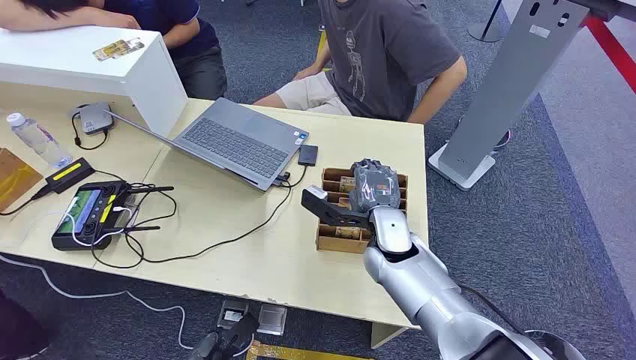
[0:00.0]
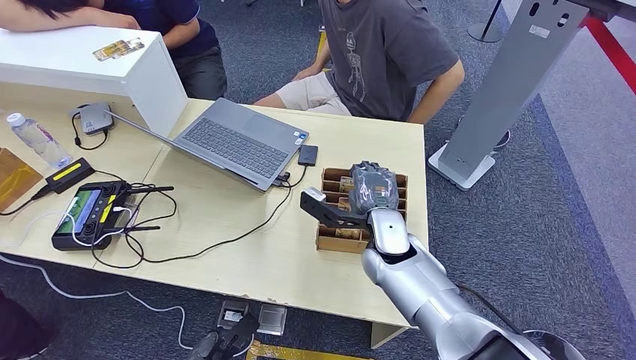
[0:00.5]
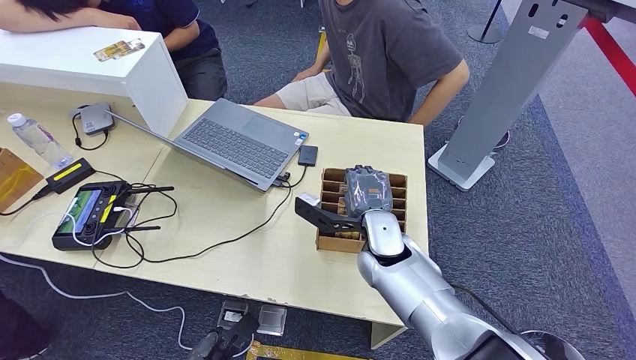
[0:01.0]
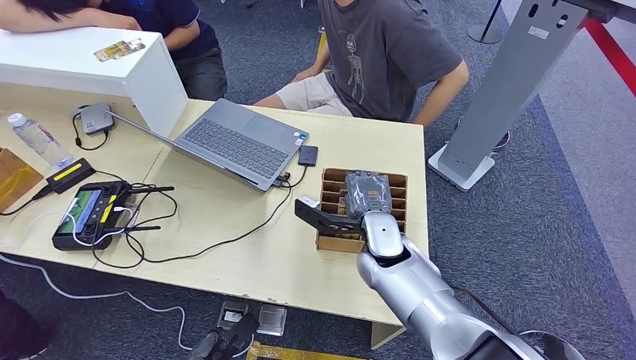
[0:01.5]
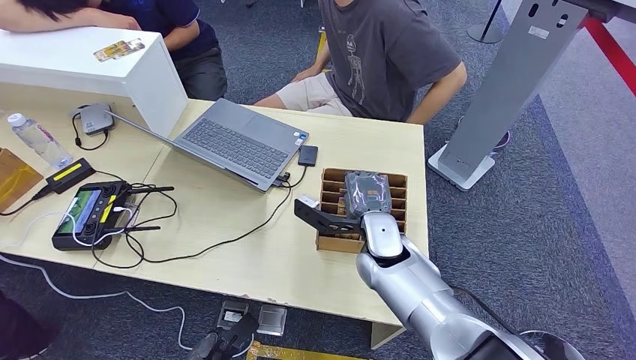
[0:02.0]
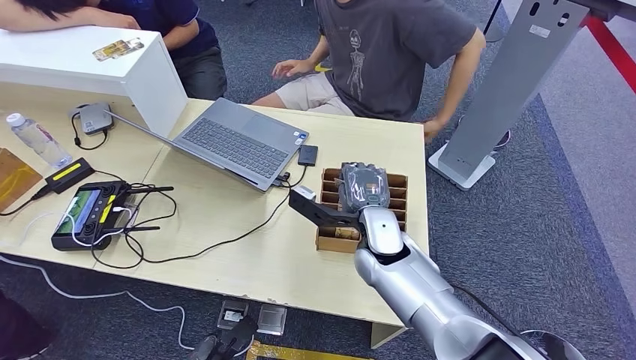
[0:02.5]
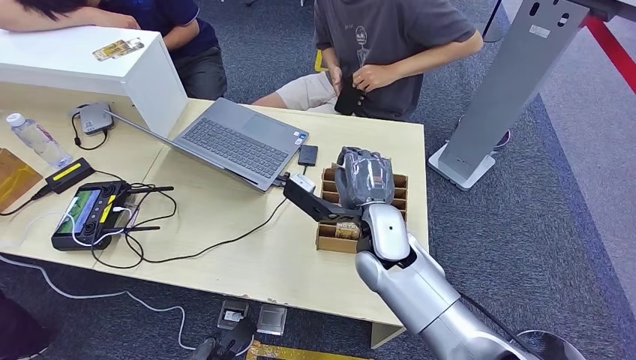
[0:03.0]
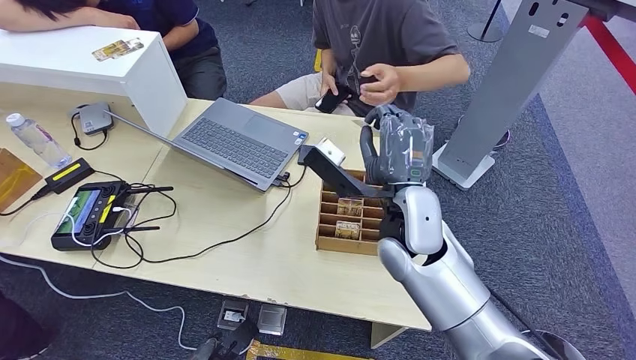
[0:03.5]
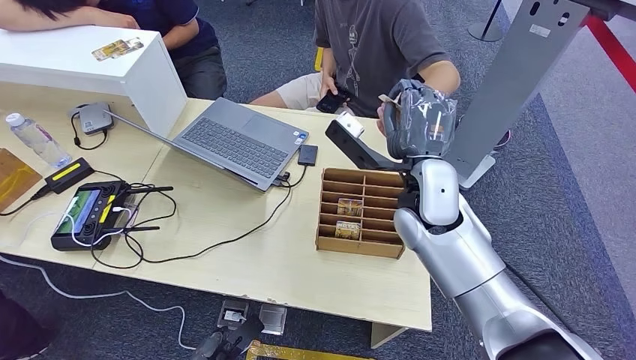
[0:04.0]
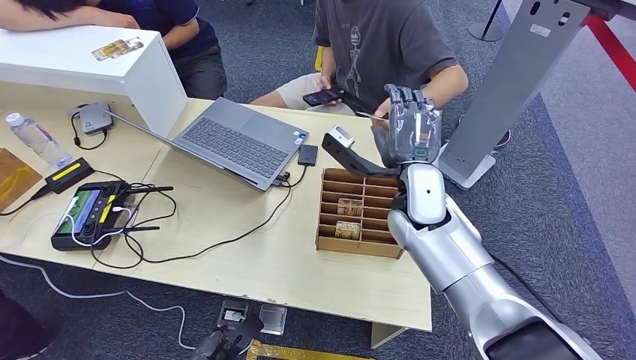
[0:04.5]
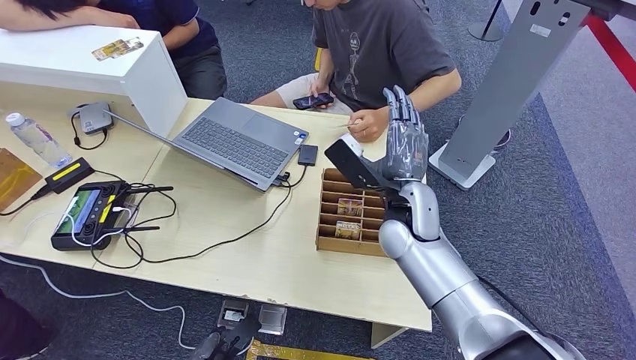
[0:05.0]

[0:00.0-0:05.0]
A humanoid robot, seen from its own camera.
Step, 0:00.0 to 0:03.0: Pick up the key card from the card box.
Step, 0:03.5 to 0:05.0: Hand the key card to the target.
0:02.5 to 0:05.0: The right hand is displaced upward by approximately 5 cm.
